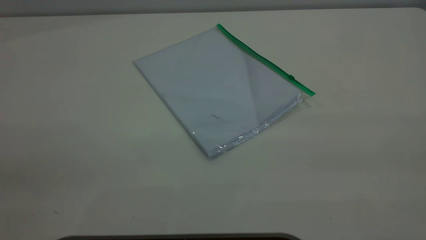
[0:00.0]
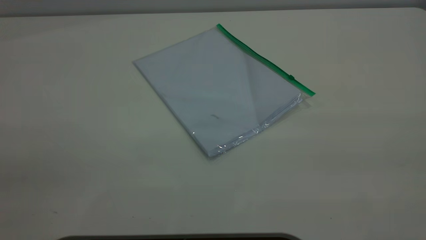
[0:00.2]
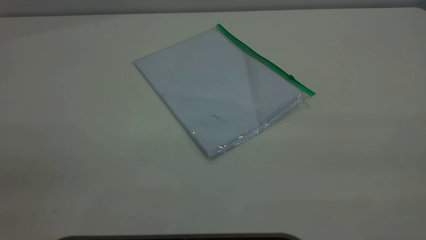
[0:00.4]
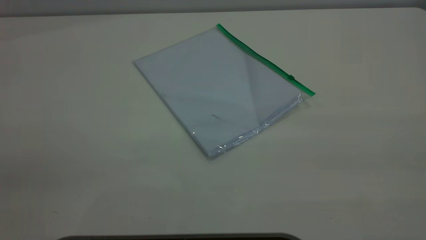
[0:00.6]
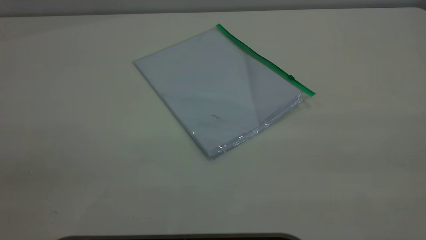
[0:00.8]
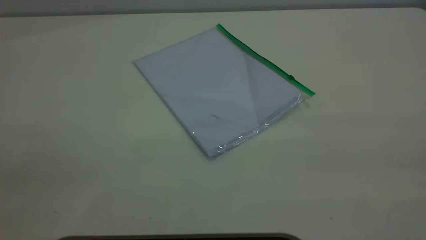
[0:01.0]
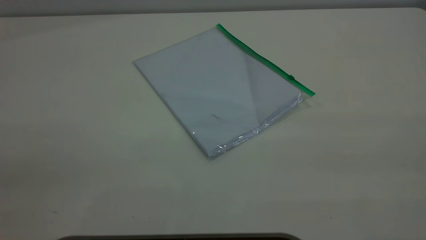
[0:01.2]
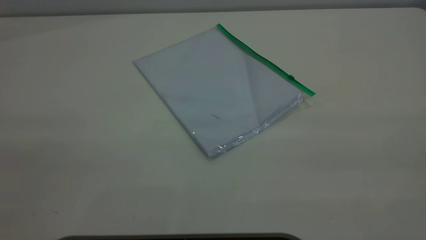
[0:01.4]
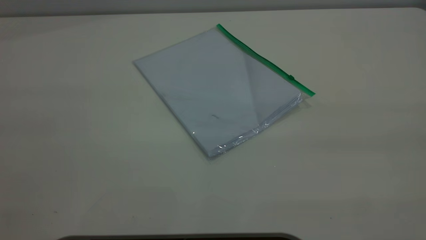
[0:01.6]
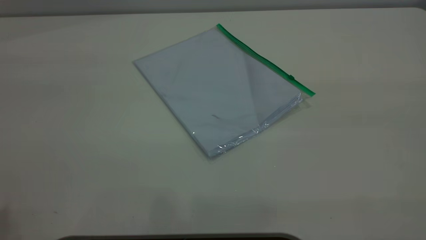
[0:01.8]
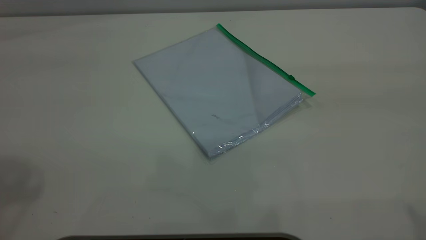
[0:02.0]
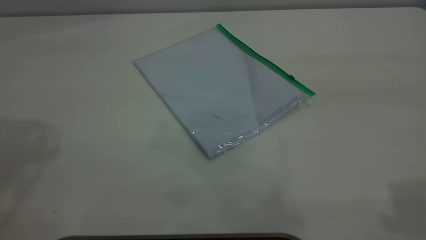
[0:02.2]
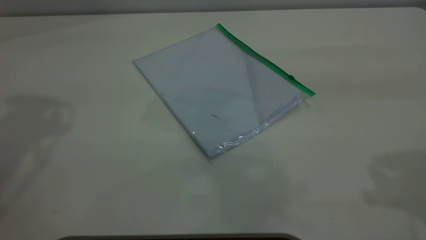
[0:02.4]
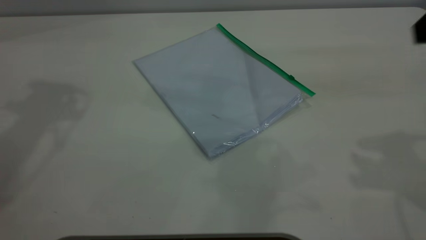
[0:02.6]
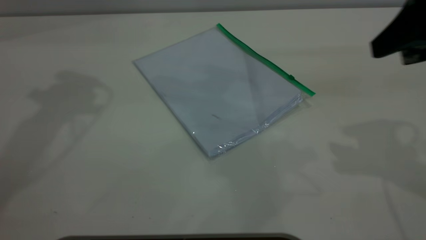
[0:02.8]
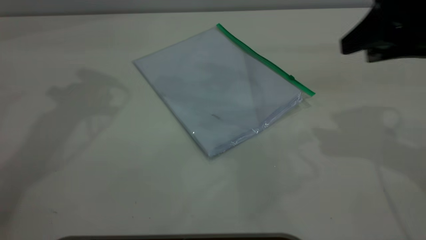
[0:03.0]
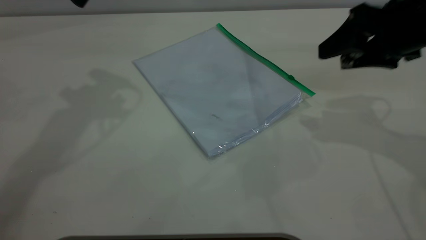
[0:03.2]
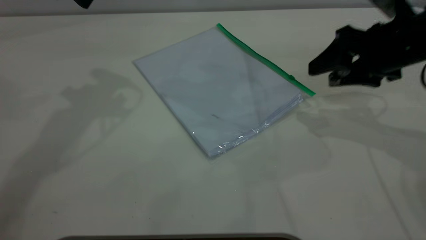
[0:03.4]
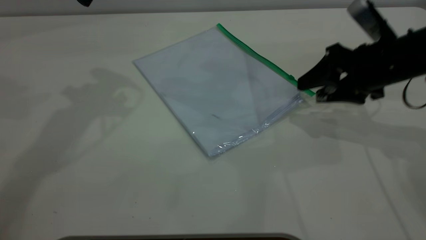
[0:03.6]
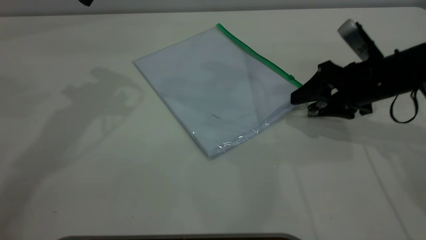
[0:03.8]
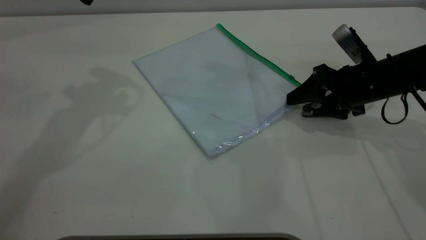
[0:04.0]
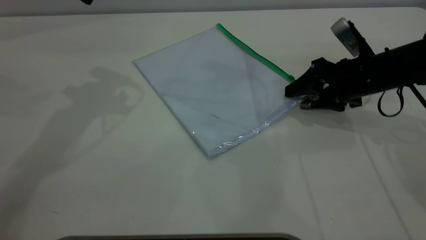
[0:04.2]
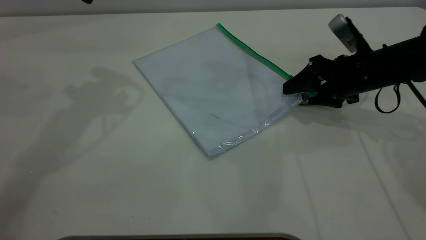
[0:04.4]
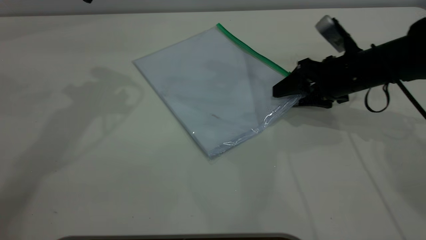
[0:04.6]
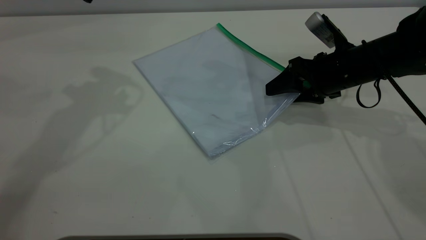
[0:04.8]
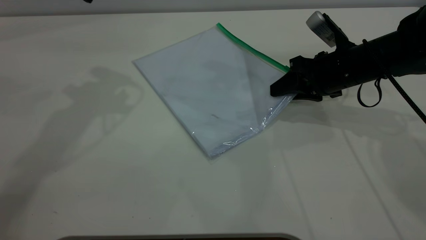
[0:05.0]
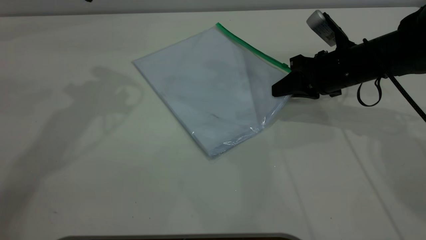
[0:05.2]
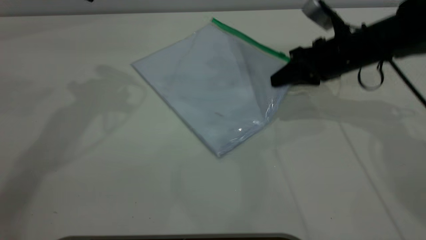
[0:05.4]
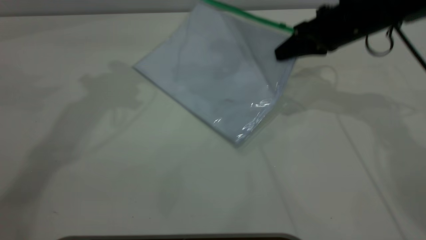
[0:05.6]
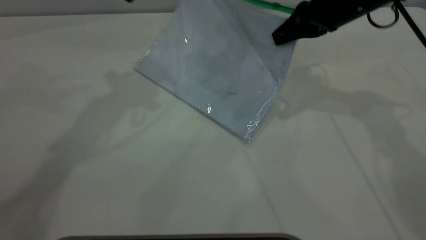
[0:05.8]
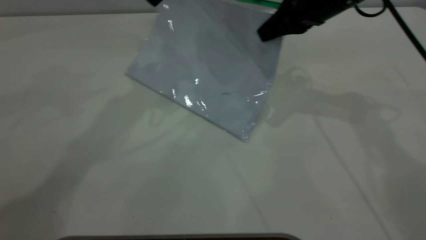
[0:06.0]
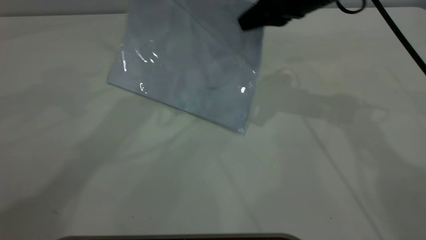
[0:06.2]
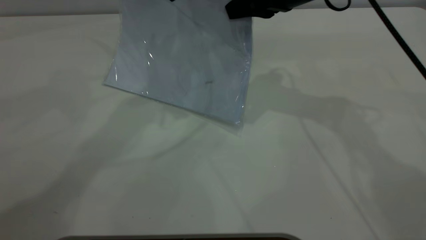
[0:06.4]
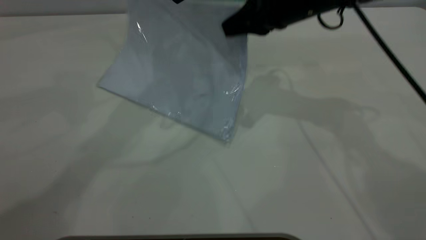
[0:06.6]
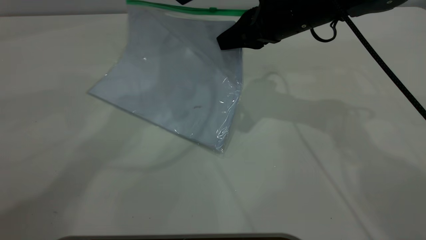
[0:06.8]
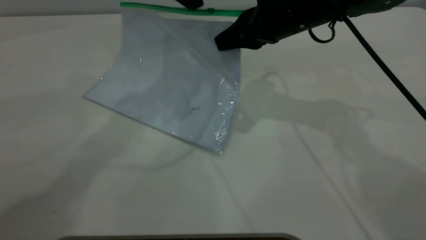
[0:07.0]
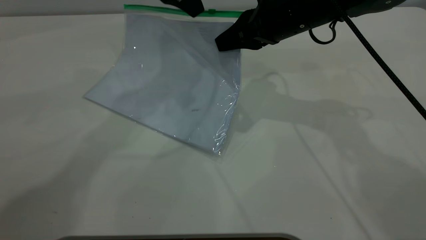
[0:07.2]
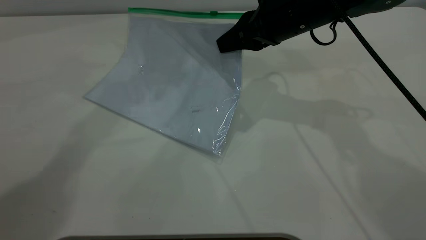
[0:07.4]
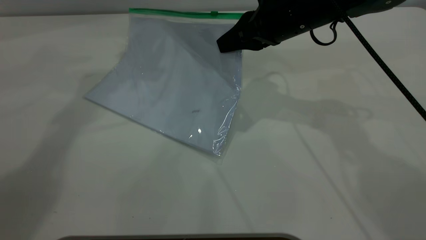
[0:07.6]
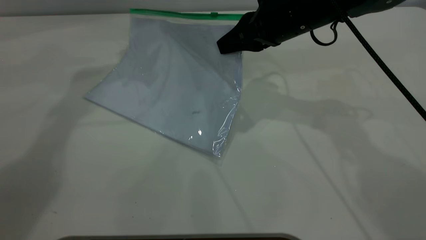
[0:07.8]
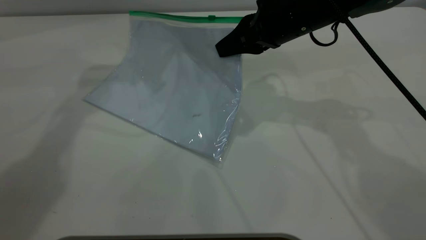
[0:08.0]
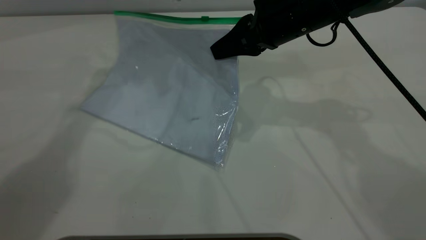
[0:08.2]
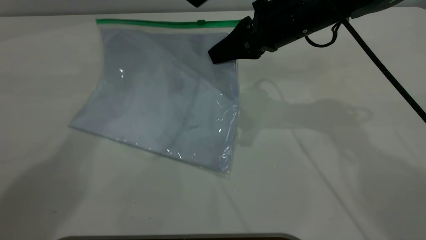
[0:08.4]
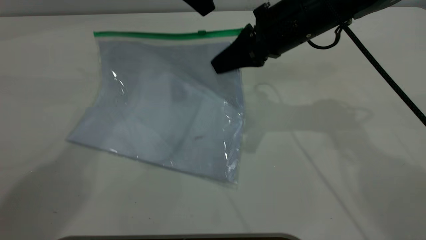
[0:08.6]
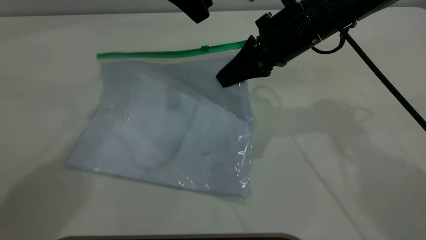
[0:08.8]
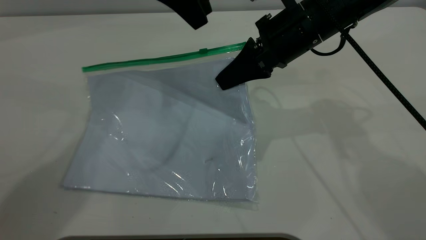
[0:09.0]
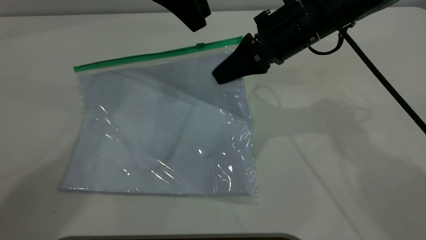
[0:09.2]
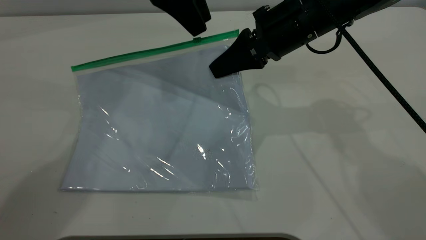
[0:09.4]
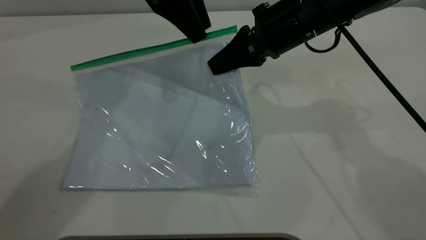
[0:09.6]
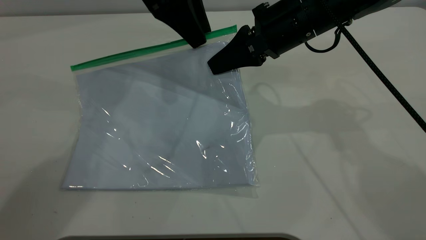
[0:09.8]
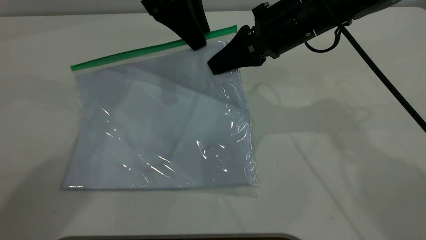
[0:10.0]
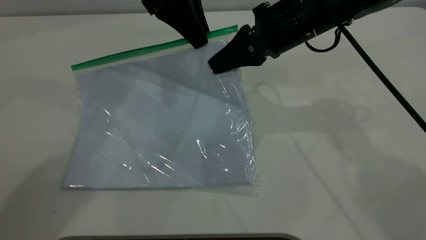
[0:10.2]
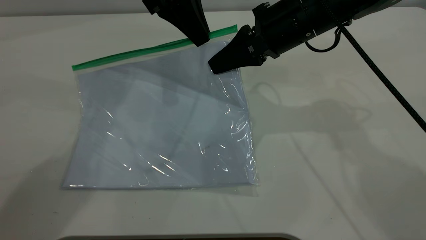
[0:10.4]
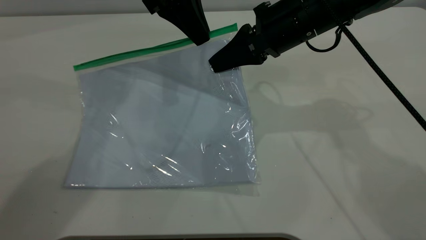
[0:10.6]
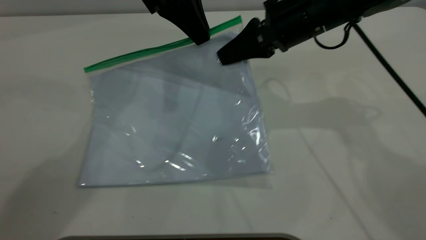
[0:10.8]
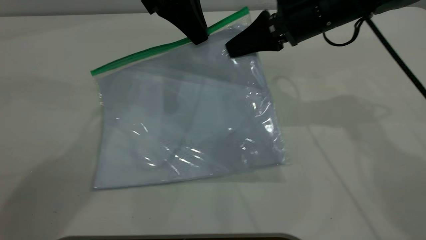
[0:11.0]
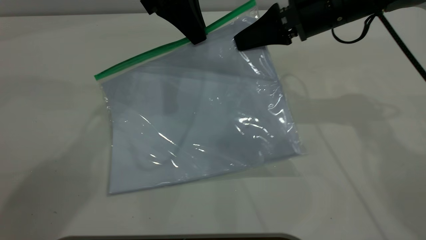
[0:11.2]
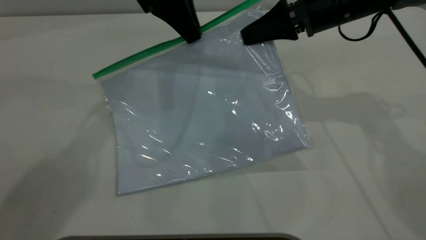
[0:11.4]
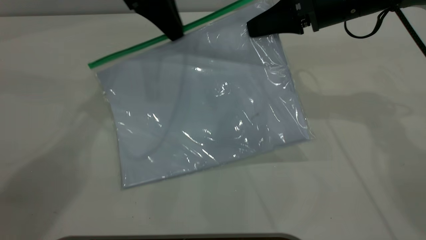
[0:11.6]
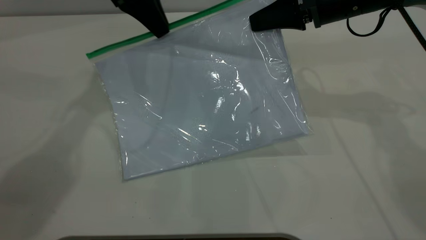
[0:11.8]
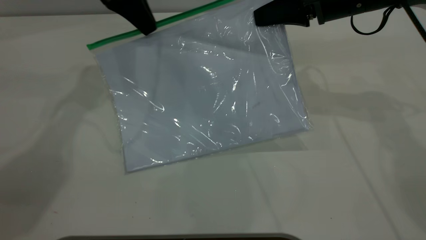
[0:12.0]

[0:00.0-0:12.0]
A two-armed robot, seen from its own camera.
Step, 0:00.0 to 0:05.2: Pick up the transparent plastic bag with the right gripper.
0:01.6 to 0:03.0: The right gripper shifts approximately 35 cm forward and downward.
0:03.0 to 0:04.4: The right gripper goes approximately 15 cm downward and forward.
0:04.4 to 0:06.0: The right gripper goes approximately 15 cm upward and to the left, and closes, while the left gripper is displaced to the right by some 10 cm.
0:06.0 to 0:07.6: The right gripper changes place by roughly 5 cm, while the left gripper is displaced forward and to the left by roughly 10 cm.
0:07.6 to 0:09.0: The left gripper shifts some 10 cm to the right and backward.
0:09.0 to 0:10.4: The left gripper closes.
0:10.4 to 0:12.0: The left gripper heads to the left, covering roughly 10 cm. Meanwhile the right gripper heads to the right, covering some 10 cm.

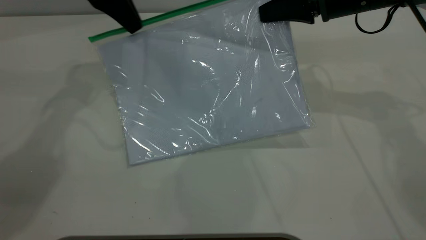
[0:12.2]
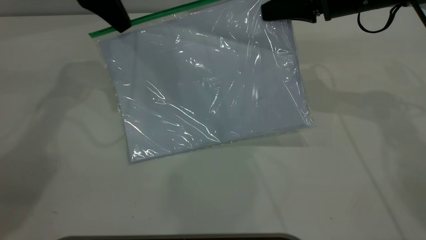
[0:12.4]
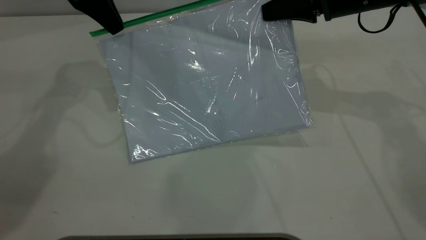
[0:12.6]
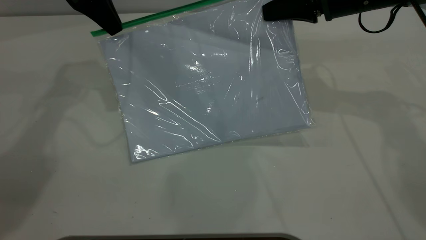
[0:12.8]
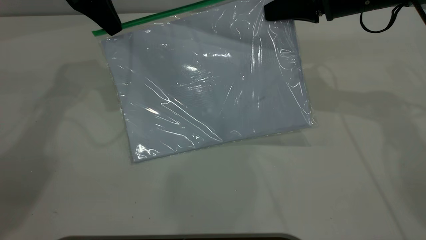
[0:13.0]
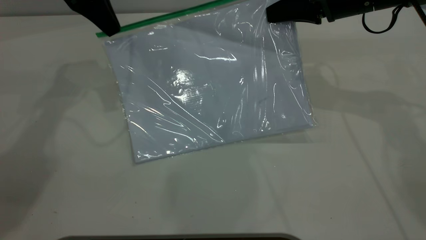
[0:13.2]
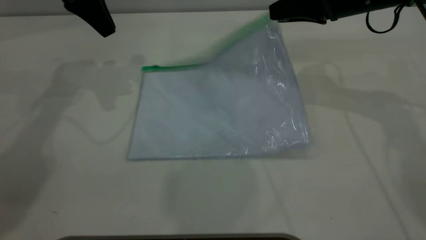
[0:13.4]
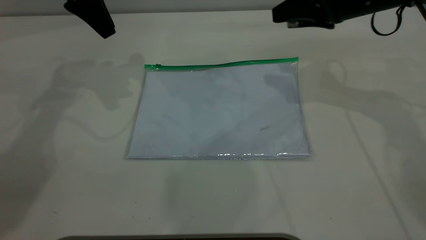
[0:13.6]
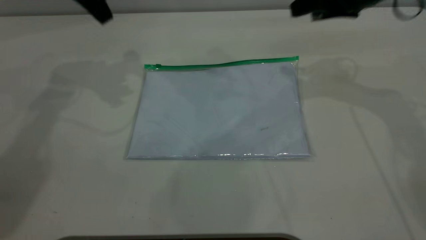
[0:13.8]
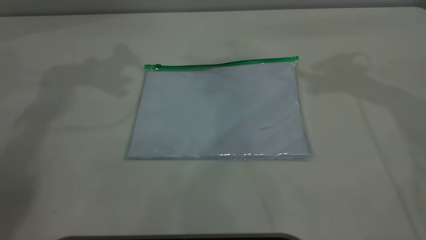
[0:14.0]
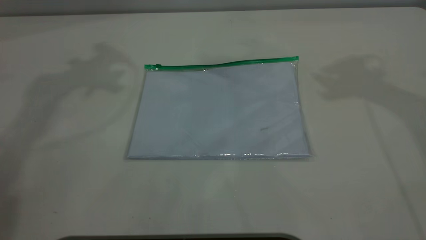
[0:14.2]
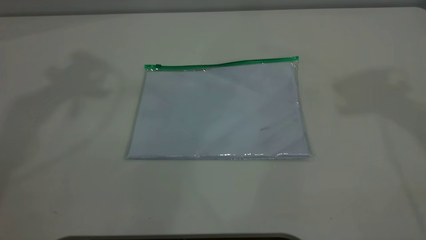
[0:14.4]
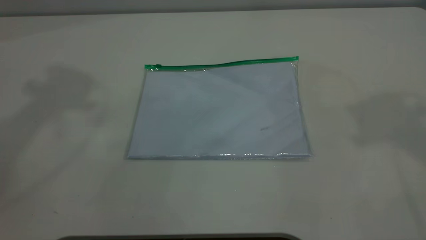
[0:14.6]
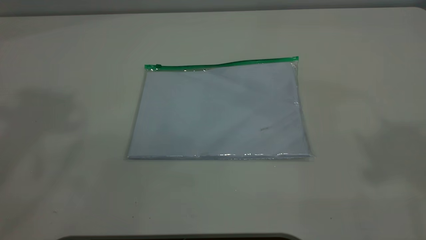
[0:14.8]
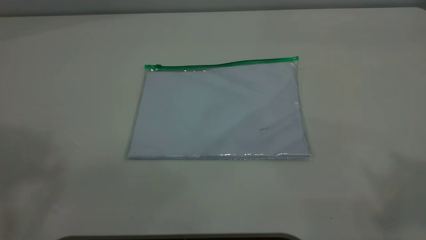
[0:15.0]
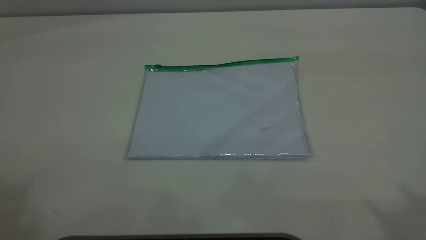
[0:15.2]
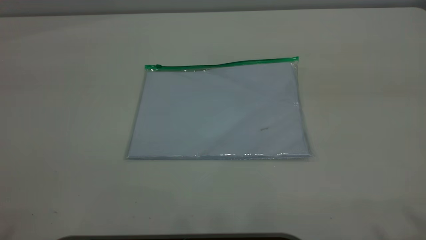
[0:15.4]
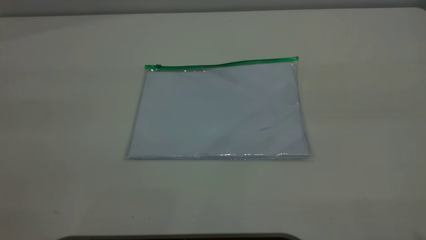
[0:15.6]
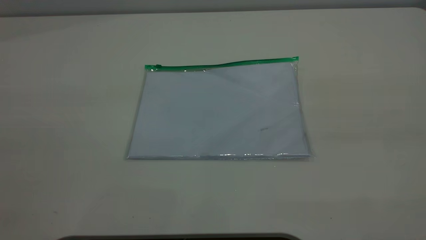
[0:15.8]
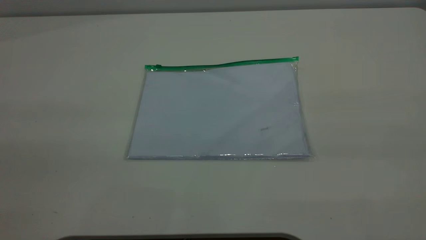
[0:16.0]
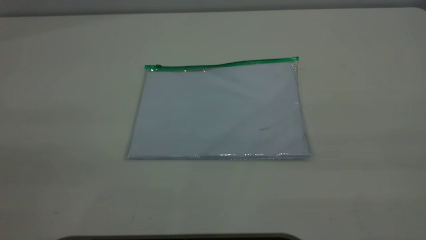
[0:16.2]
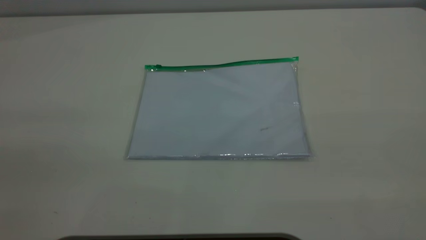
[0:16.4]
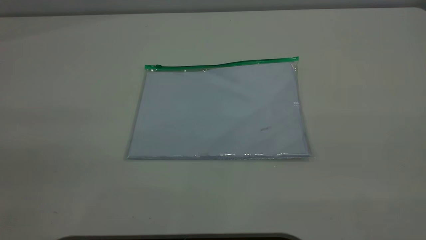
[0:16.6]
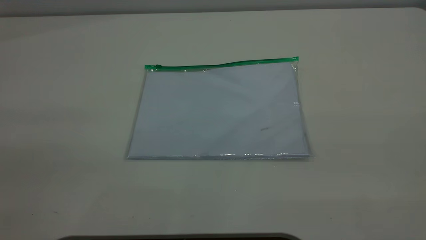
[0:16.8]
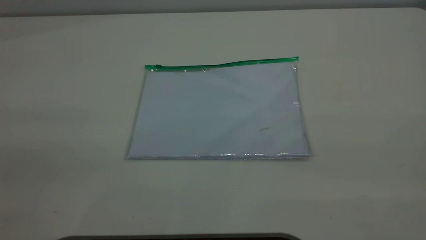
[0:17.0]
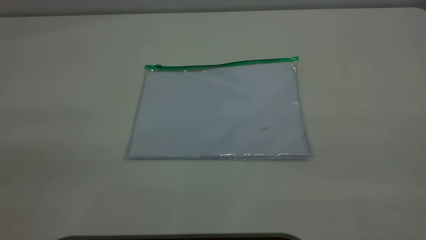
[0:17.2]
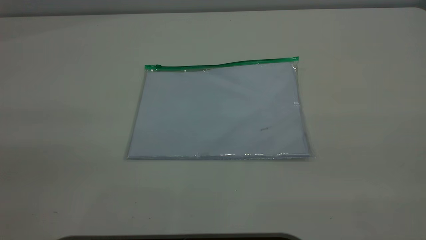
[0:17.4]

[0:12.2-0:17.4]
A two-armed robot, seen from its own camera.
0:12.2 to 0:14.0: The right gripper goes approximately 15 cm upward and to the right, and opens up. Meanwhile the left gripper is displaced upward by some 15 cm, and opens.
